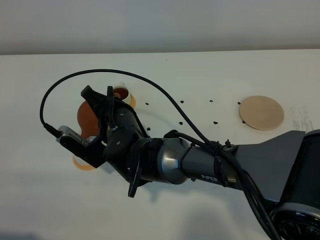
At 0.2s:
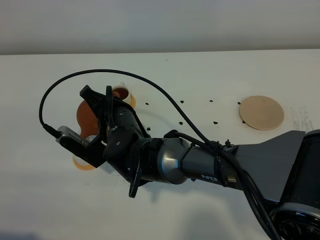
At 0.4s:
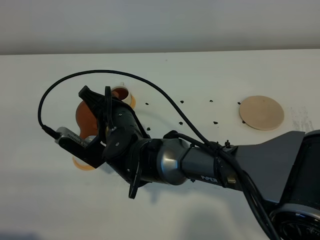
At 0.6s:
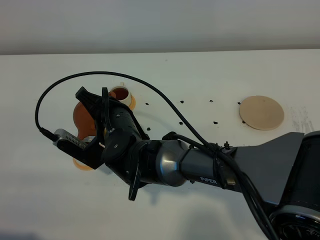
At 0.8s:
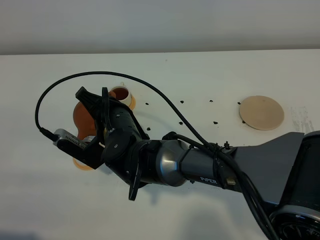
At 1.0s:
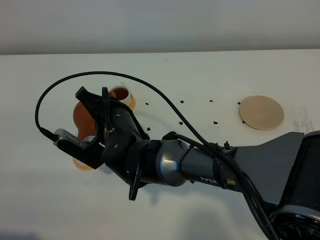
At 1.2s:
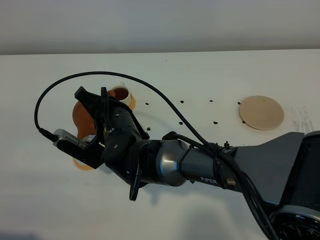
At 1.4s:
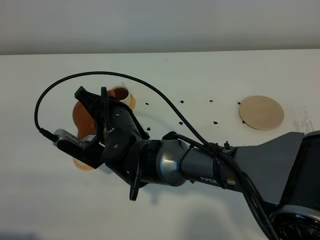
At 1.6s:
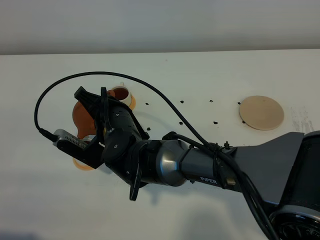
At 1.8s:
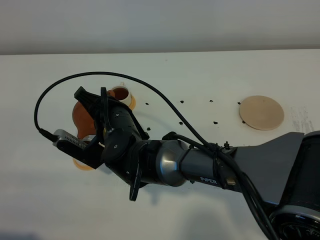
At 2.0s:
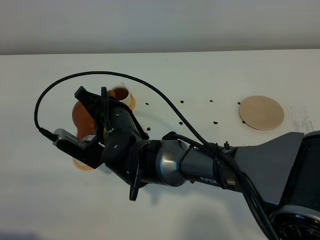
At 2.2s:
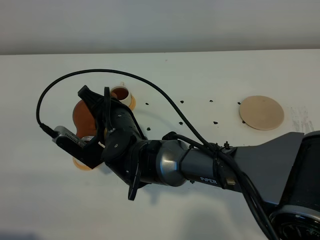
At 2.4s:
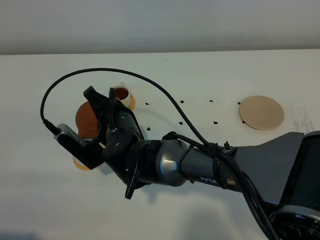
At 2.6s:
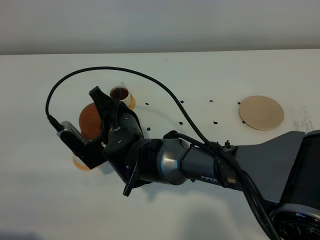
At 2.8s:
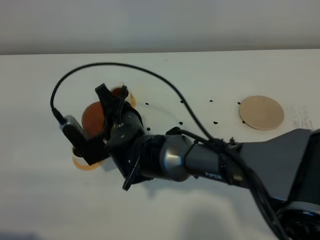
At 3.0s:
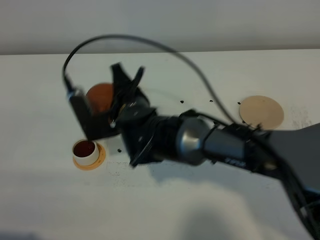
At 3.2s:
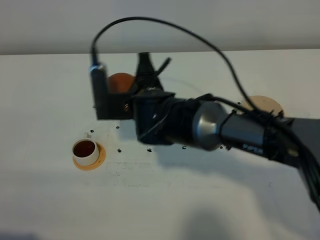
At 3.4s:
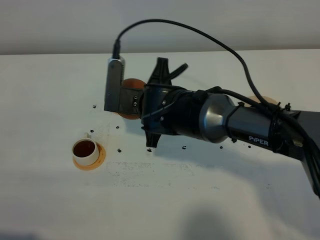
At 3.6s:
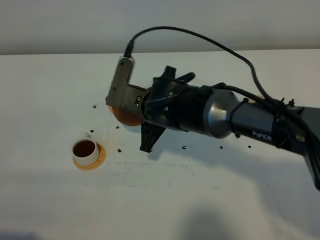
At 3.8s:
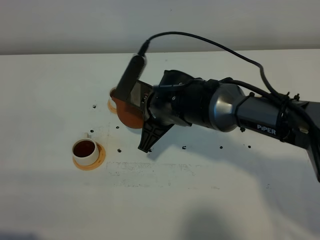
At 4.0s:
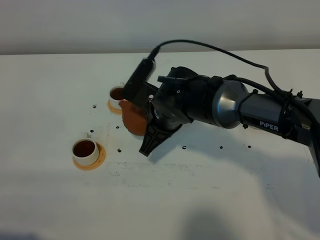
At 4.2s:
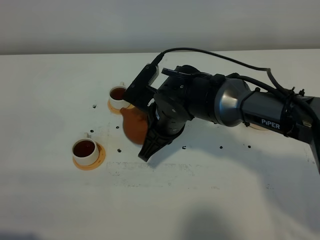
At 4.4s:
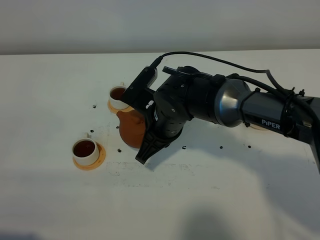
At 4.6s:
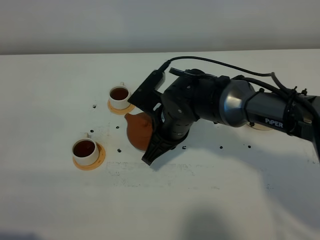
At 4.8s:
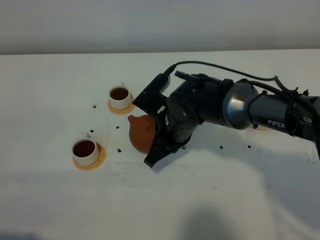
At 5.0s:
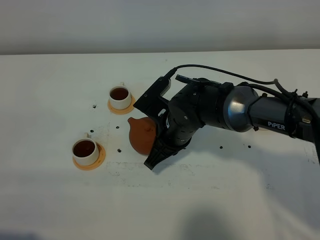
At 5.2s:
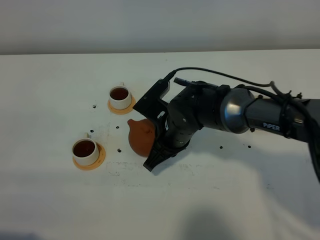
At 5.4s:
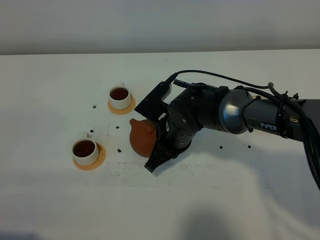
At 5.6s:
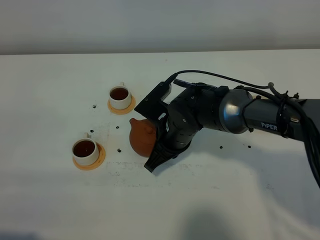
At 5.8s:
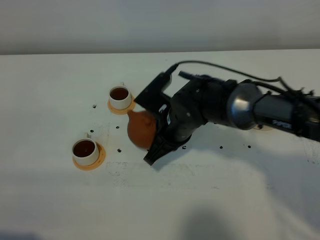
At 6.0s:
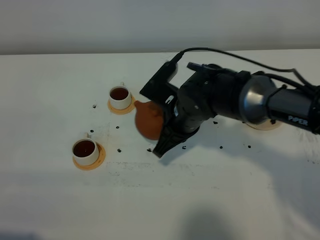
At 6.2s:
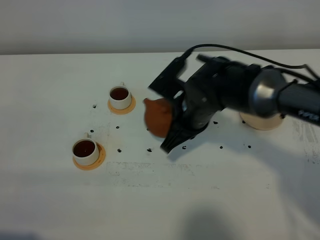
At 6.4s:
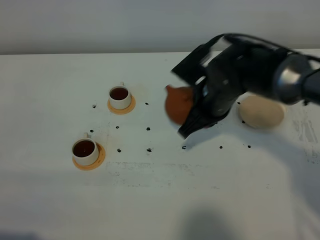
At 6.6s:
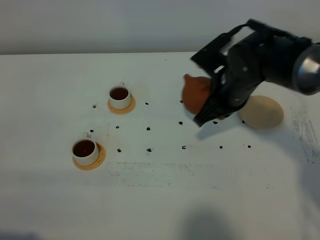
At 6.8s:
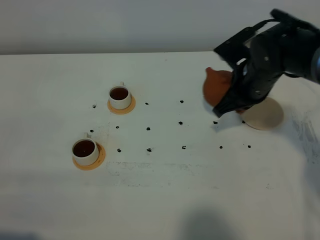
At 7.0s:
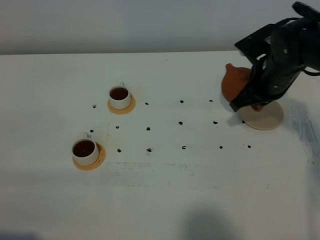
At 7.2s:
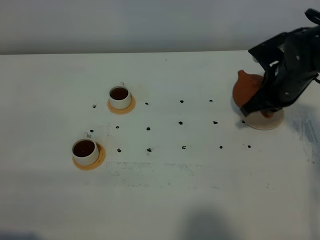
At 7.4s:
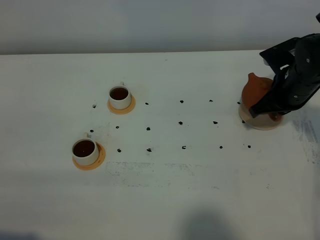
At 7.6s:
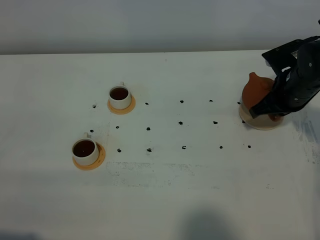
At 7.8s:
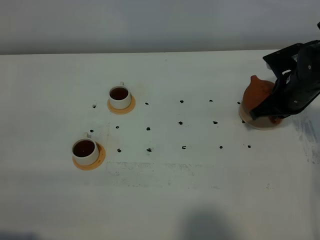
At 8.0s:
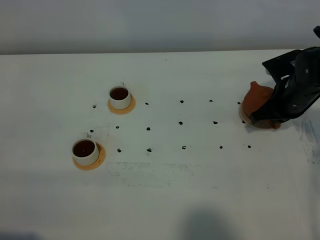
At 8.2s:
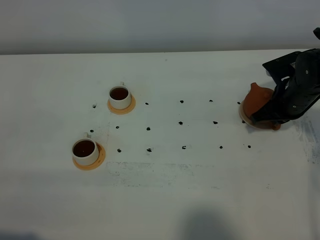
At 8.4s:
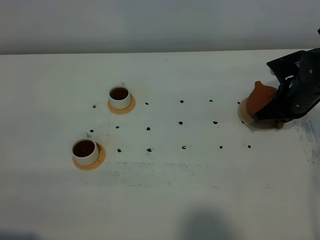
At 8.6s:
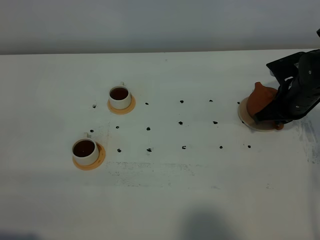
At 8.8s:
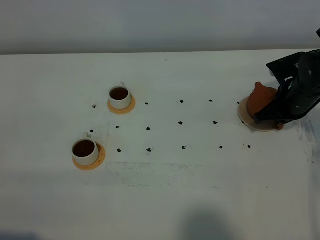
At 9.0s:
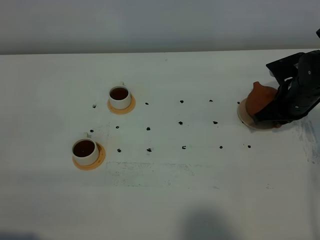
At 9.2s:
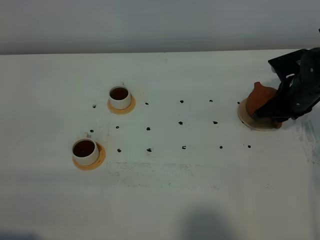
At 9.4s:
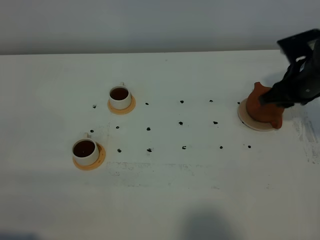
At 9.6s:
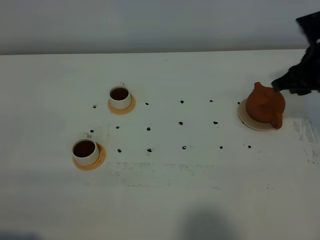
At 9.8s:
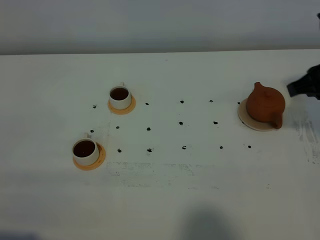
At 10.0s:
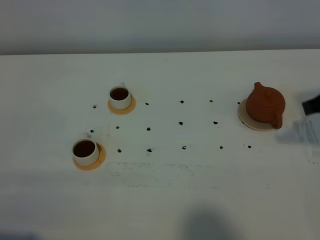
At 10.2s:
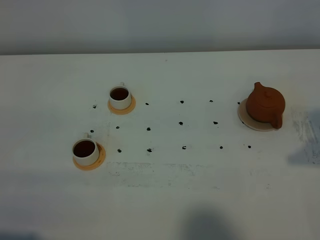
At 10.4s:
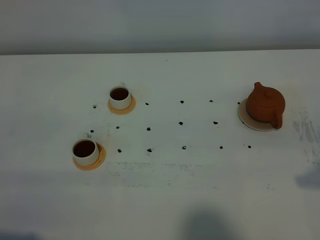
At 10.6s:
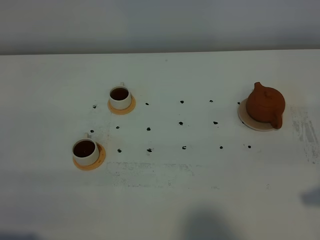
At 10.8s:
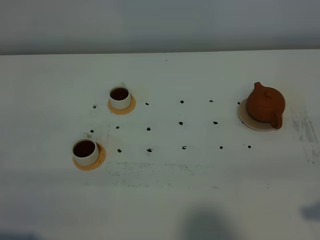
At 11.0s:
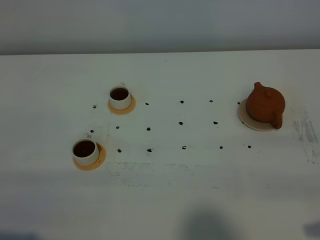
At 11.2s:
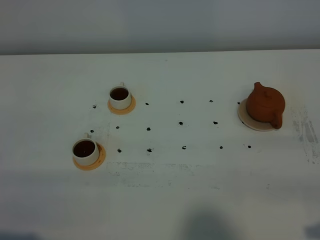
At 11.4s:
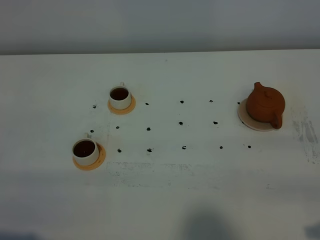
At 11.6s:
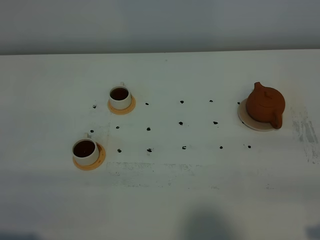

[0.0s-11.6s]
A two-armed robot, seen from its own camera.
Task of the whole recording: grasp the brown teapot and pour the tea into the two white teacups one by one, put the brown teapot back in its original place.
Step, 0.0s to 2.8s: Pour tea into the teacup with the right gripper.
0.0s to 1.4s: Neither gripper changes place.
2.8s to 4.4s: The right gripper moves to the right, about 5 cm.
4.4s to 5.8s: The grippers move only a little.
5.8s to 7.2s: The right gripper goes about 20 cm to the right and forward.
7.2s to 8.8s: The right gripper moves some 5 cm.
8.8s to 10.2s: The right gripper travels backward and upward by some 25 cm.

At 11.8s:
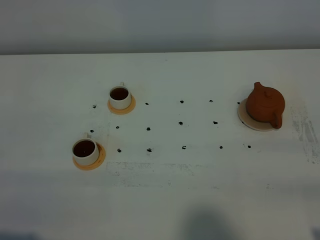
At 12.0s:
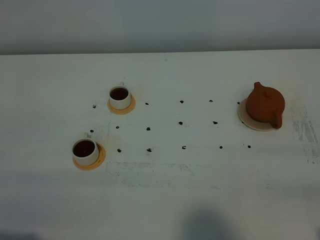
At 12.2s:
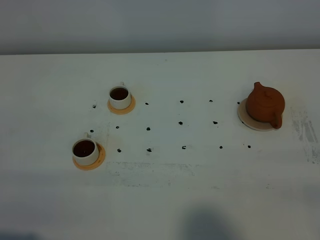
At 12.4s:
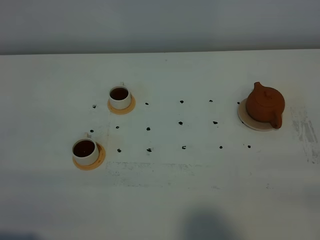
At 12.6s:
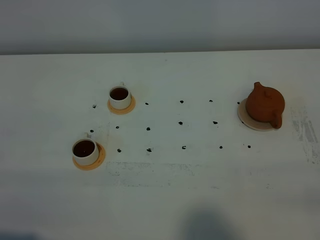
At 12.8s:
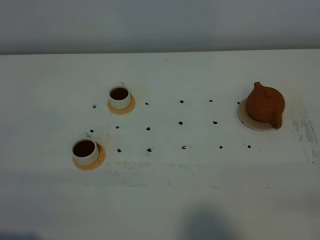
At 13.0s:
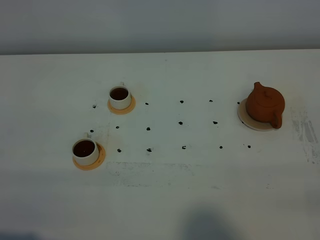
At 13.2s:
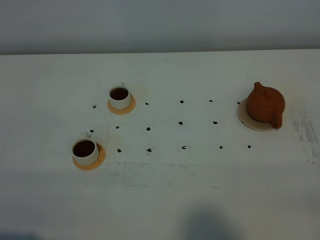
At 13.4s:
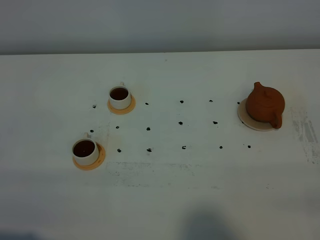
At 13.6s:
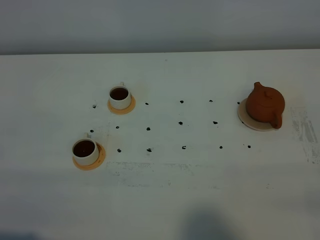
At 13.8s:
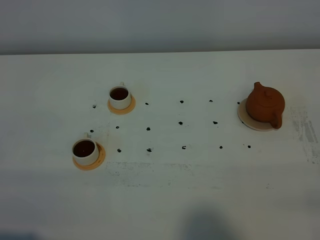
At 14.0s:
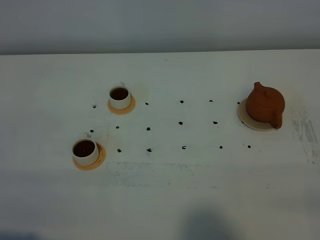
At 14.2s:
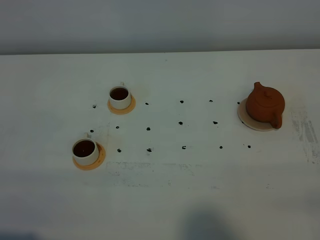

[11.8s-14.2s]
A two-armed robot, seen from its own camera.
Task of the whole recording: grasp the brown teapot and pour the tea into the two white teacups one by one, put the brown teapot back in its original place.
13.0s to 14.2s: Both grippers stay about where they are.
